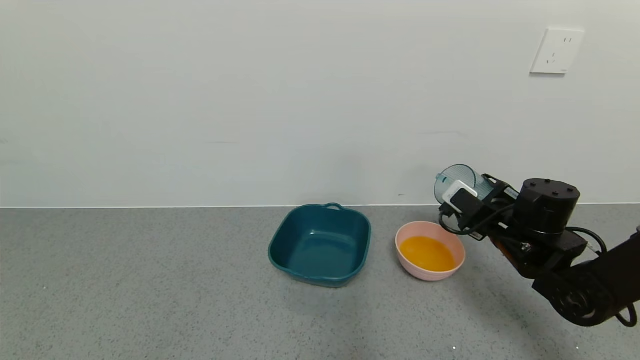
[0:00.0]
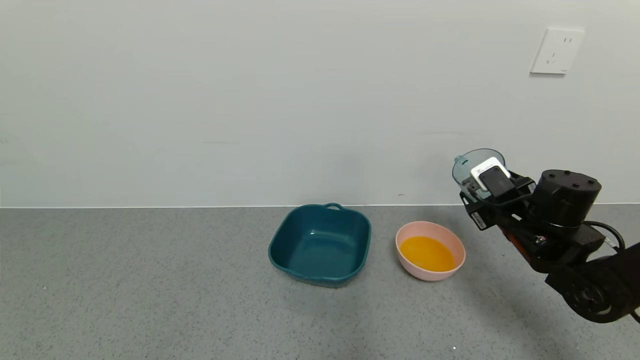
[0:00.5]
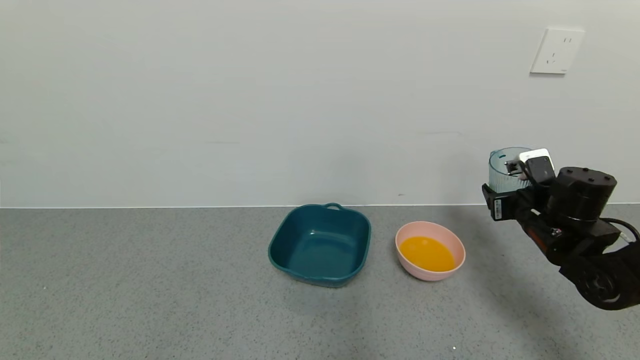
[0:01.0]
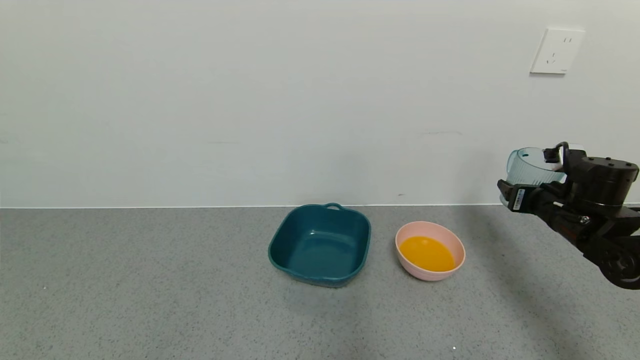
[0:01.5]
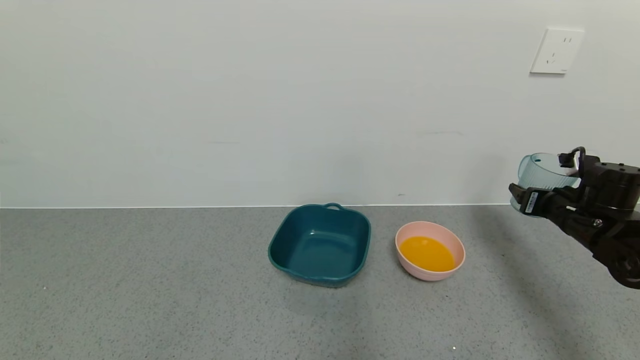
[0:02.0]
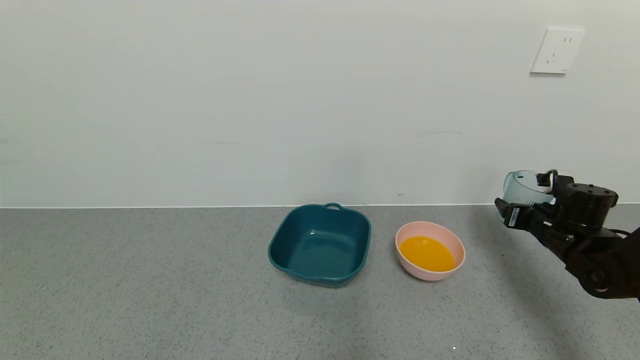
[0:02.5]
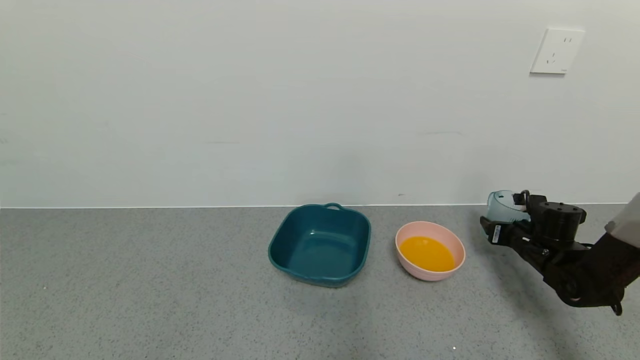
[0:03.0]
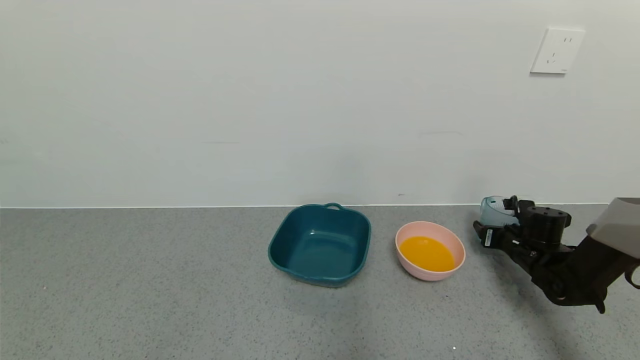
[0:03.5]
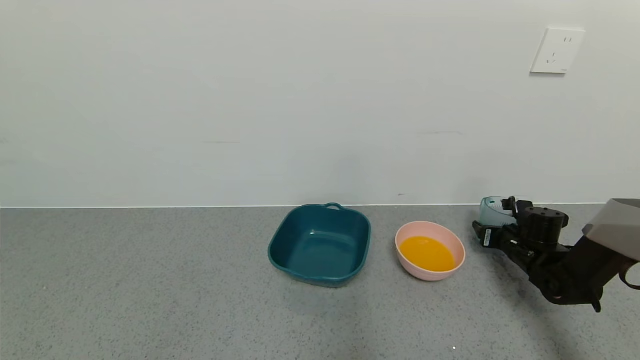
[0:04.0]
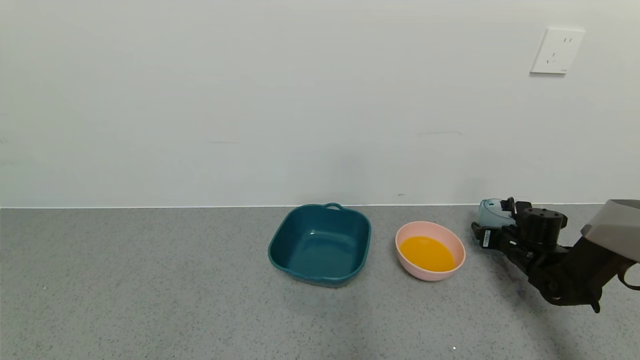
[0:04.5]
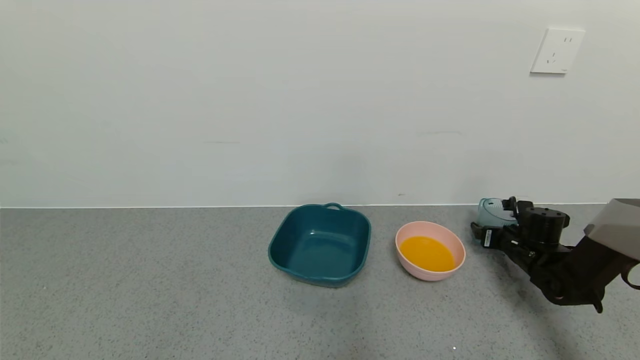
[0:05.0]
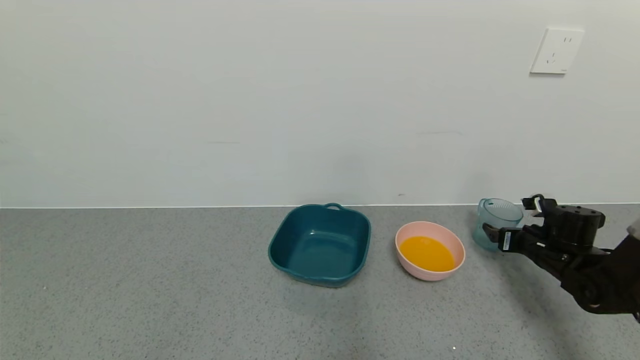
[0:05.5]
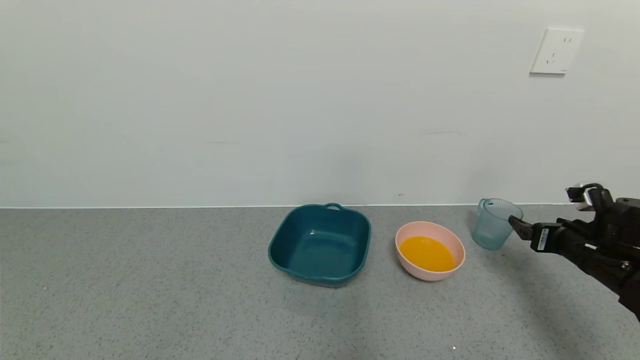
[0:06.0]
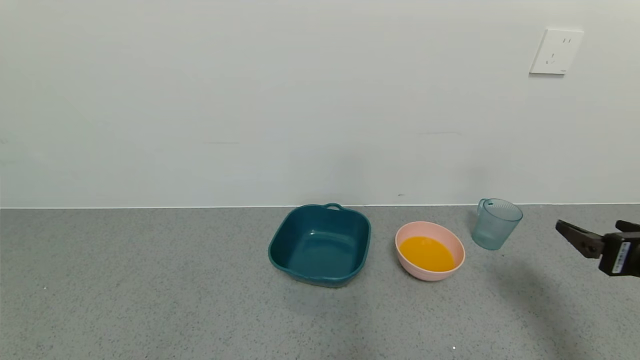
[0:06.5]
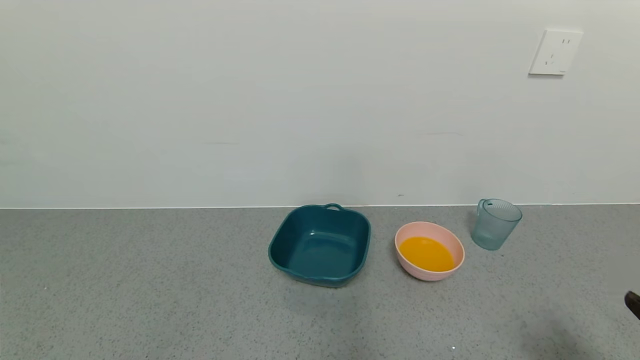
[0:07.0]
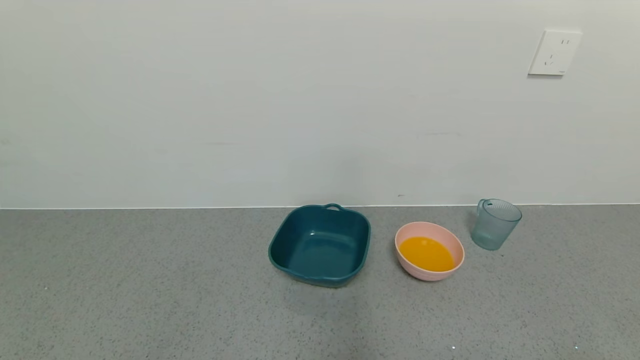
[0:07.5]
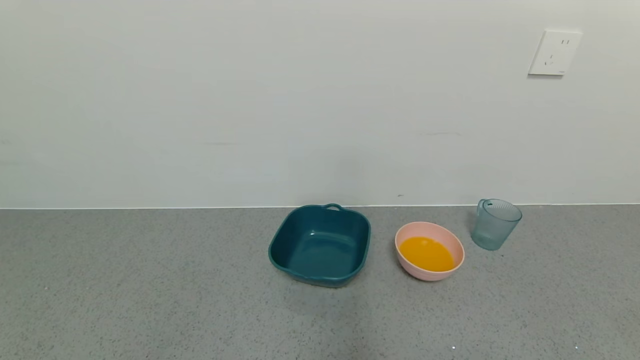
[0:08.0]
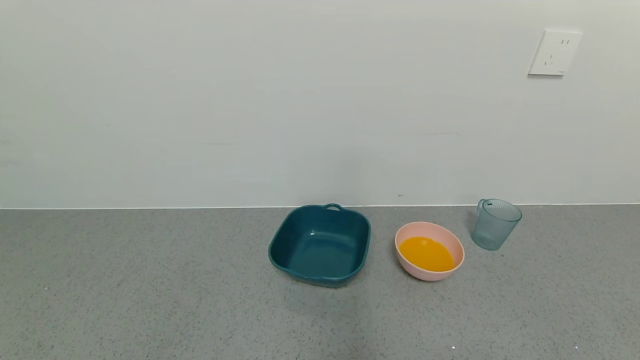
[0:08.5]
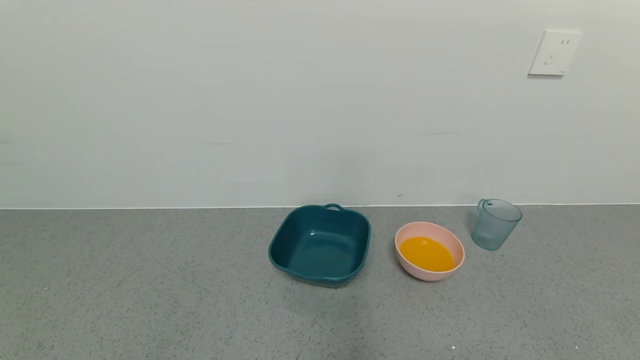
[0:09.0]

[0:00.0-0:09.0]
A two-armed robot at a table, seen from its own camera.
Task of the whole recording: use a gripper to pick up the cup and pour the liquid into a bowl or tray.
Step, 0:00.0 to 0:05.5: Place the glass cup with the right gripper.
0:00.0 to 0:02.0: The right gripper goes some 10 cm to the right.
0:02.0 to 0:04.5: The right gripper goes approximately 15 cm downward and forward, and opens.
0:04.5 to 0:07.0: The right gripper shifts roughly 40 cm backward and upward, and opens up.
0:07.0 to 0:09.0: The right gripper is displaced downward and backward by about 15 cm.
